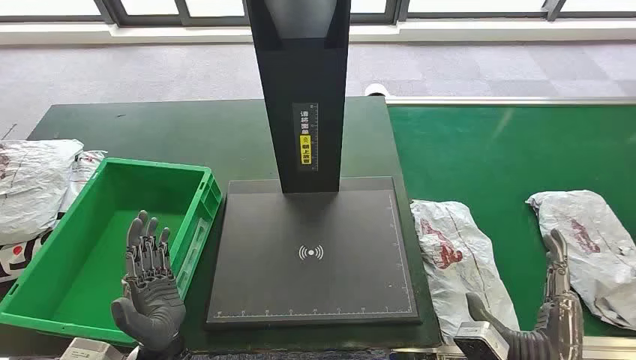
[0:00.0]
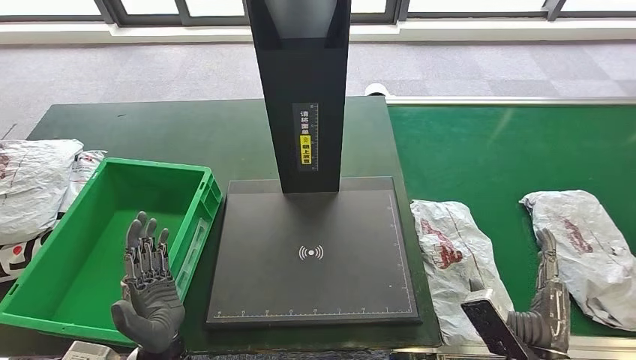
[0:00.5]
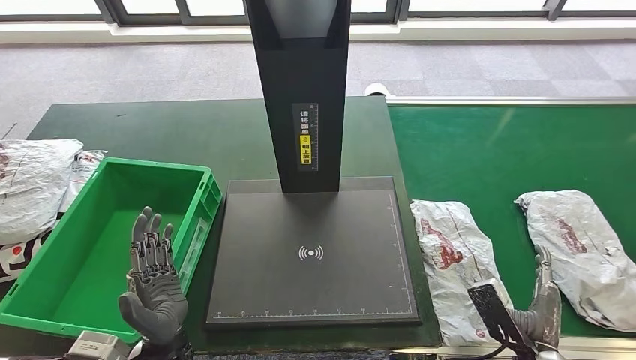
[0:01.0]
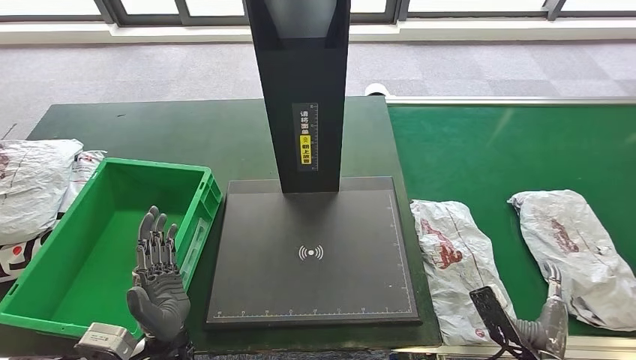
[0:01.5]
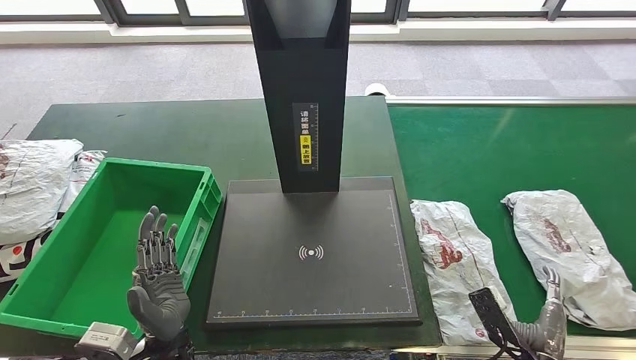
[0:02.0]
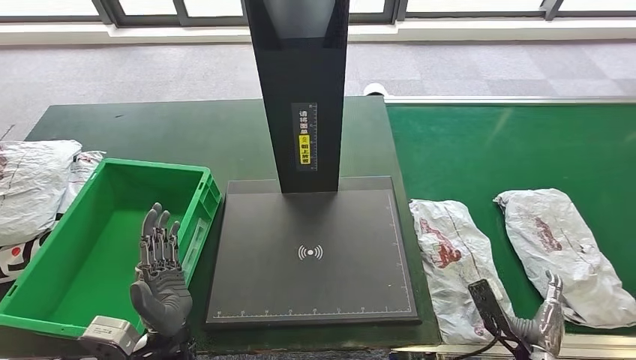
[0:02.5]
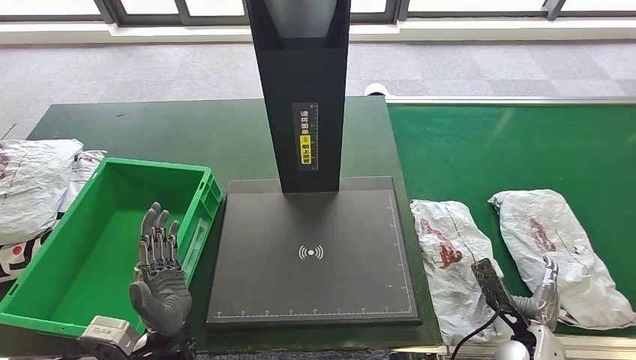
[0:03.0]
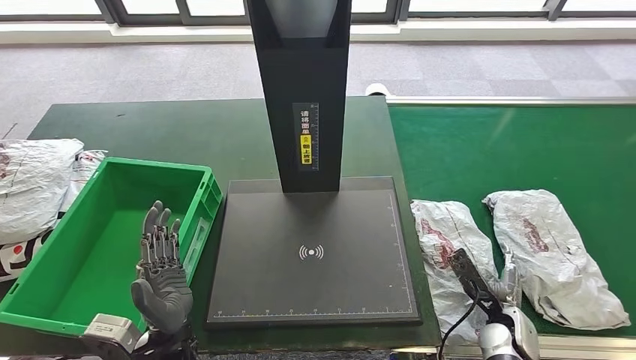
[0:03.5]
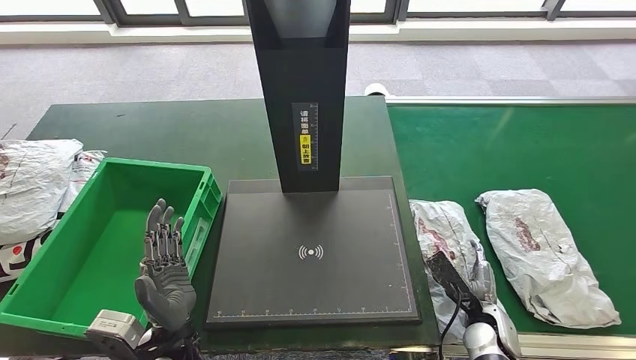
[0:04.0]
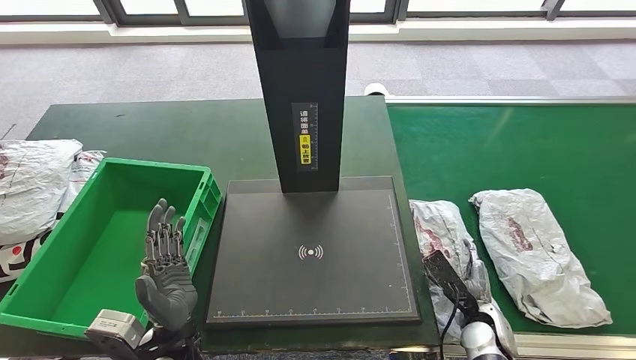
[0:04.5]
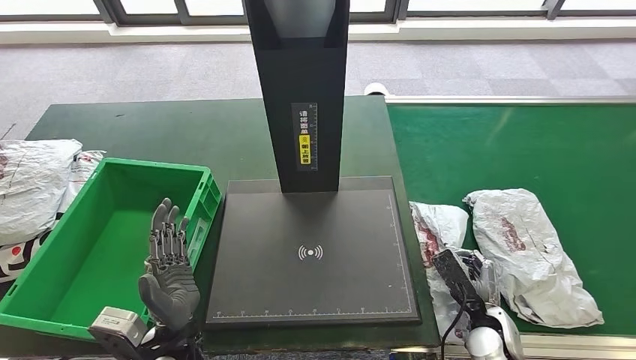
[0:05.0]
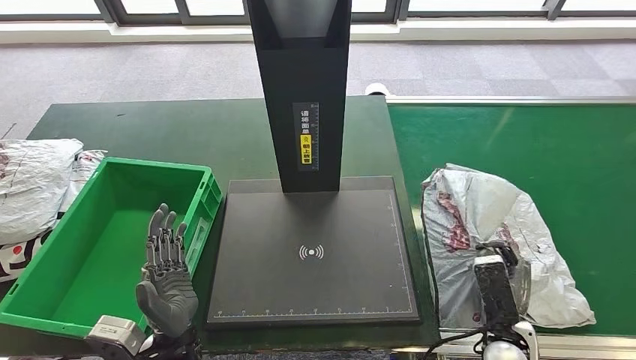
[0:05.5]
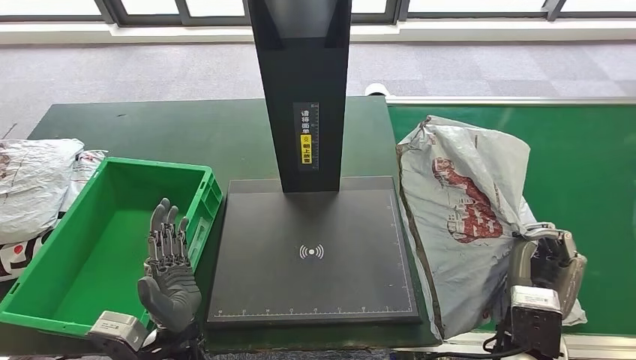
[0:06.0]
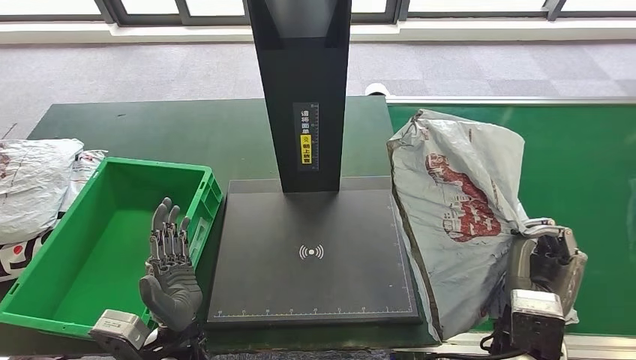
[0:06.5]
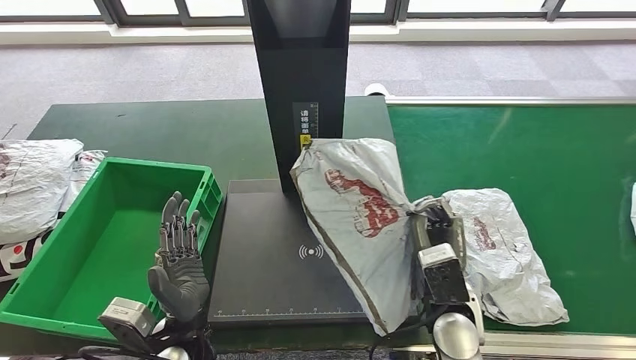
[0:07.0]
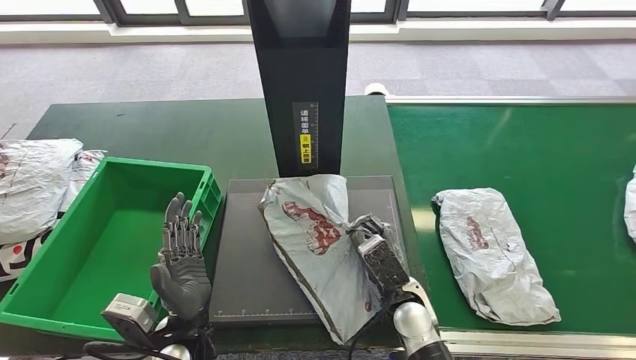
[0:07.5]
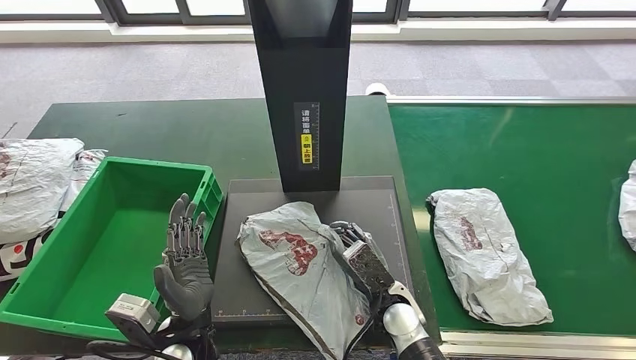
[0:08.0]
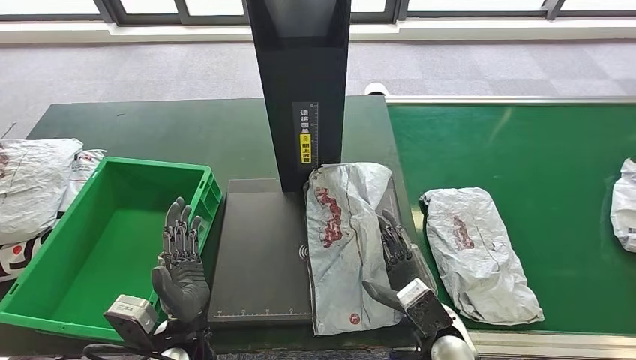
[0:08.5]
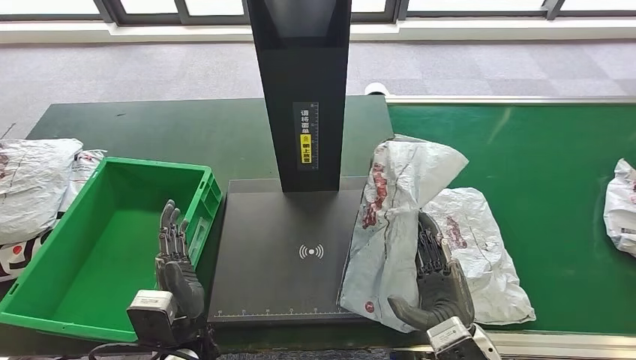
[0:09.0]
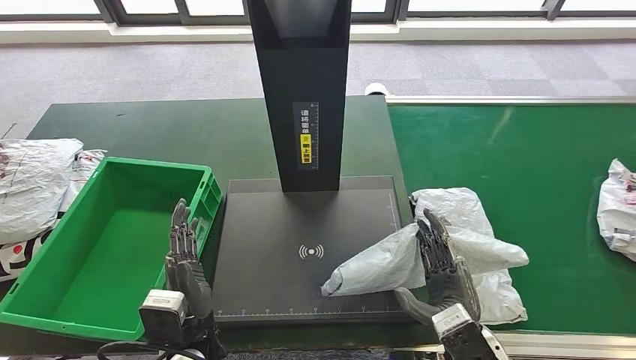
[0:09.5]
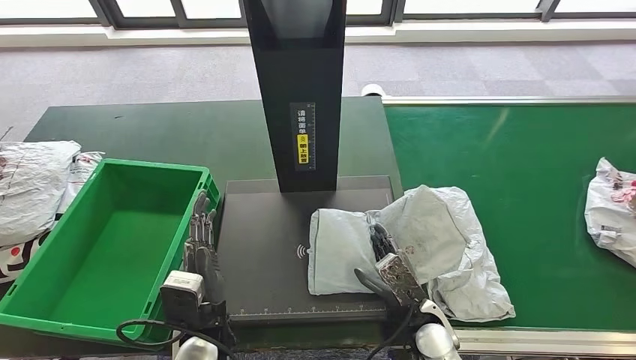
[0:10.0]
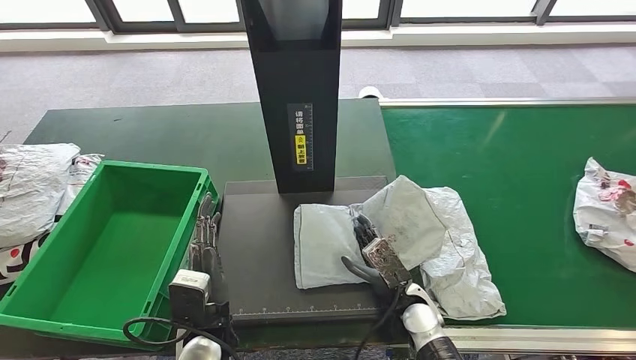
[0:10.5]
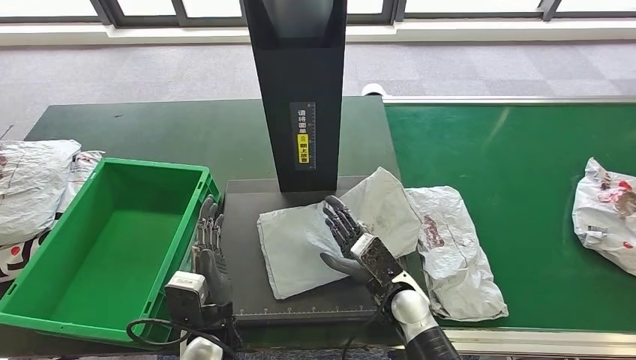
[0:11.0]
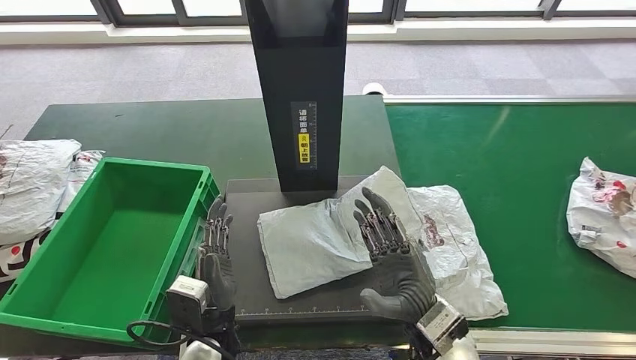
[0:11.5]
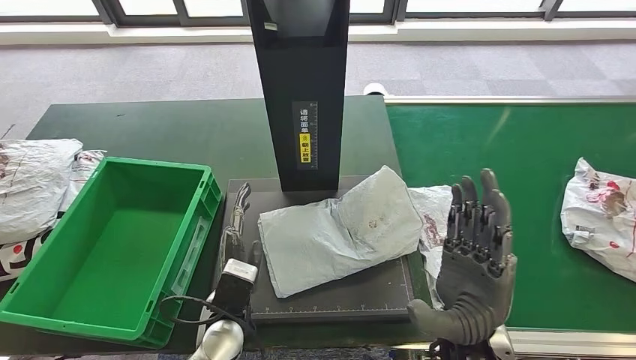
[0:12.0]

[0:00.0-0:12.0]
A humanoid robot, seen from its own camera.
Step, 0:00.0 to 0:06.0: Take the parcel off the conveyor belt.
Step, 0:06.5 to 0:08.0: Place the parcel onto the inbound machine.
0:02.0 to 0:04.0: The right hand travels forward by roughly 10 cm.
0:04.0 to 0:06.0: The right hand is displaced upward by approximately 15 cm.

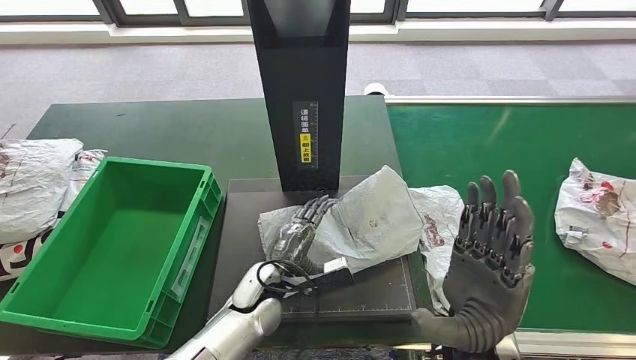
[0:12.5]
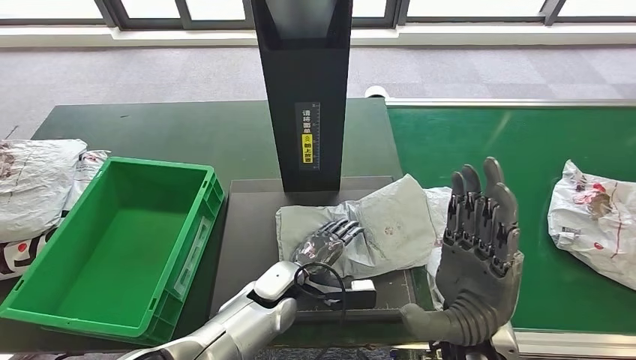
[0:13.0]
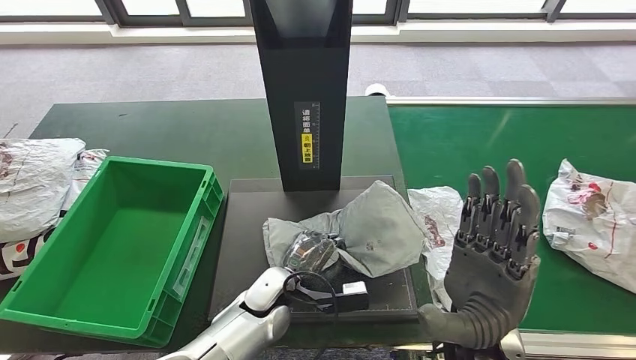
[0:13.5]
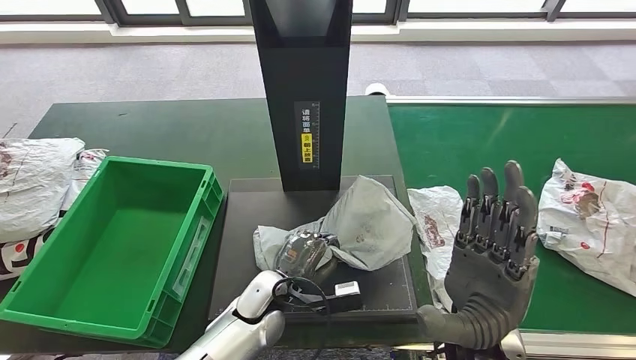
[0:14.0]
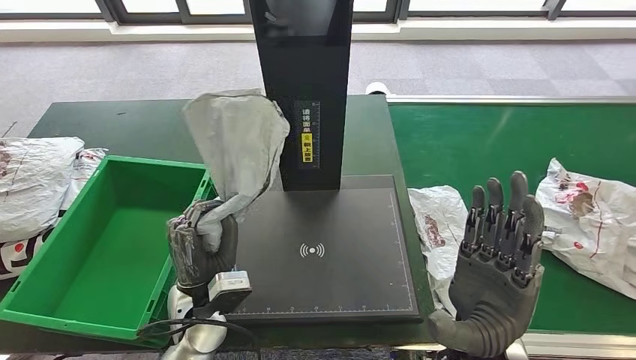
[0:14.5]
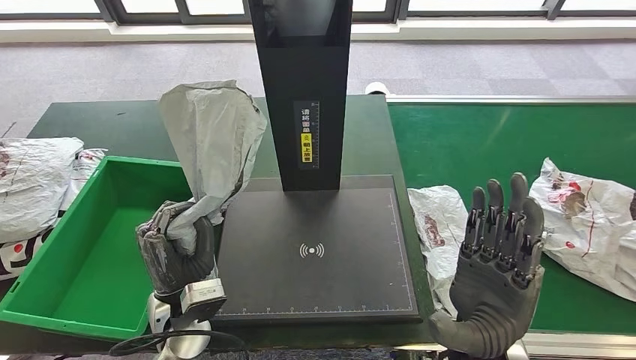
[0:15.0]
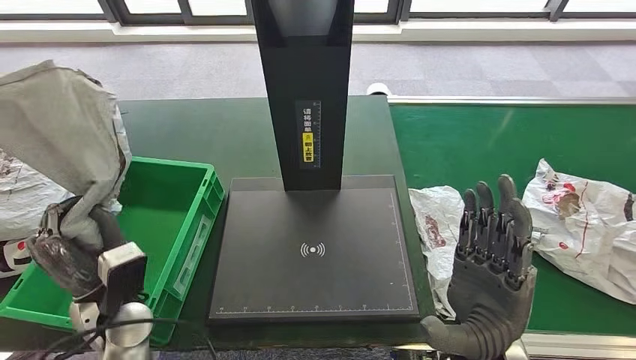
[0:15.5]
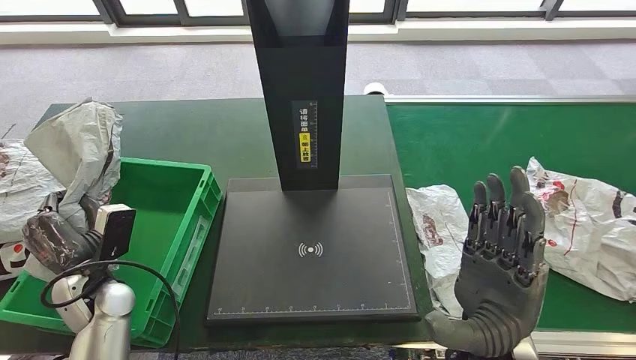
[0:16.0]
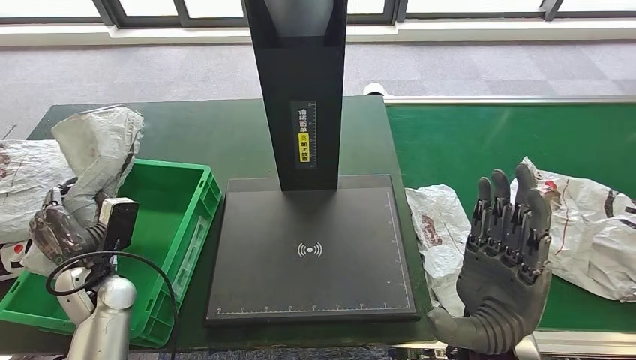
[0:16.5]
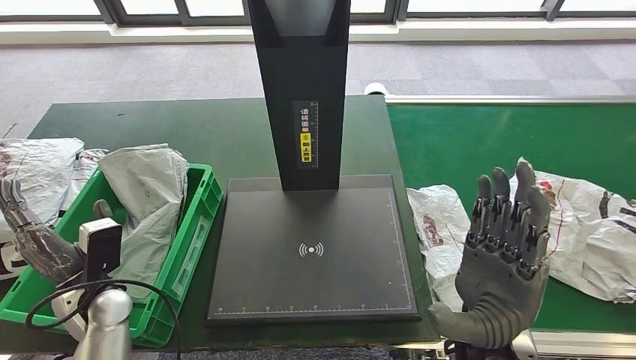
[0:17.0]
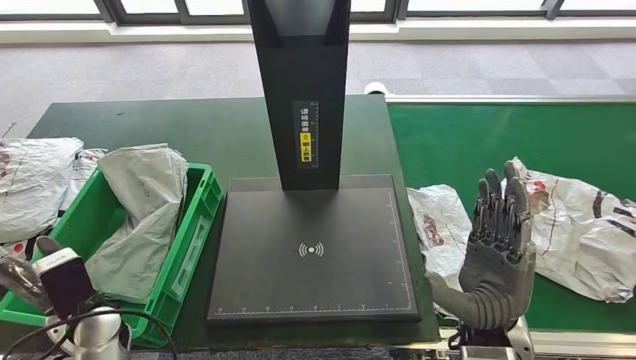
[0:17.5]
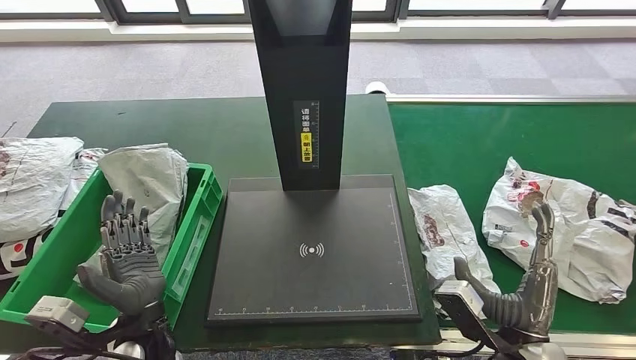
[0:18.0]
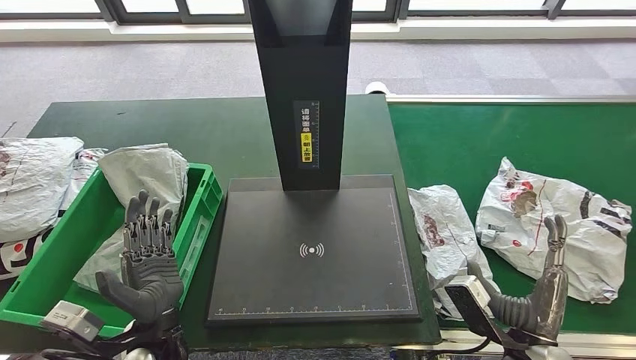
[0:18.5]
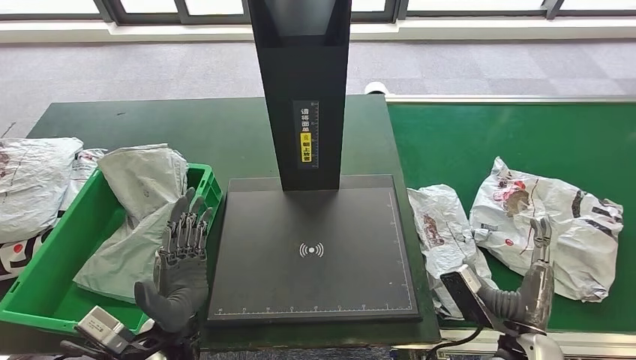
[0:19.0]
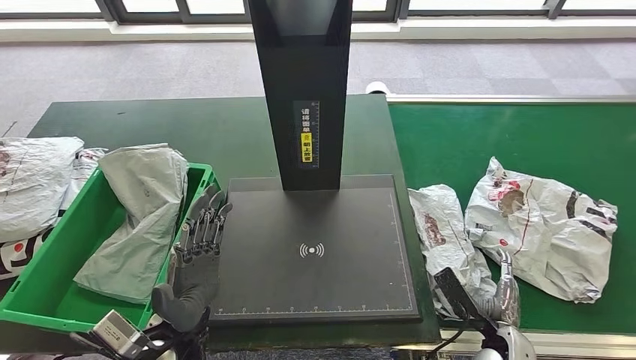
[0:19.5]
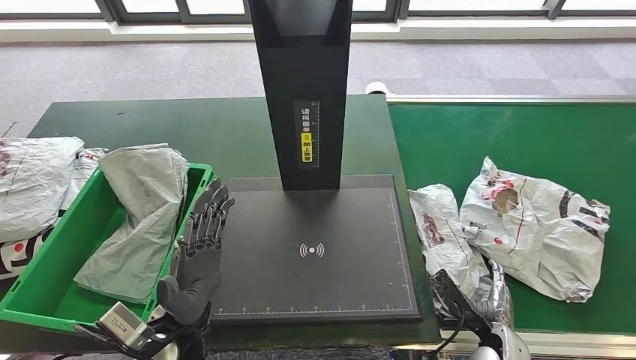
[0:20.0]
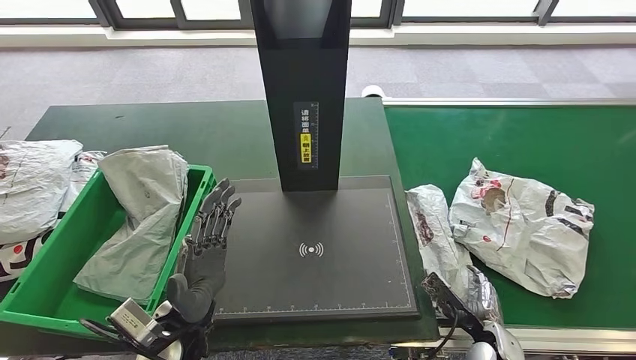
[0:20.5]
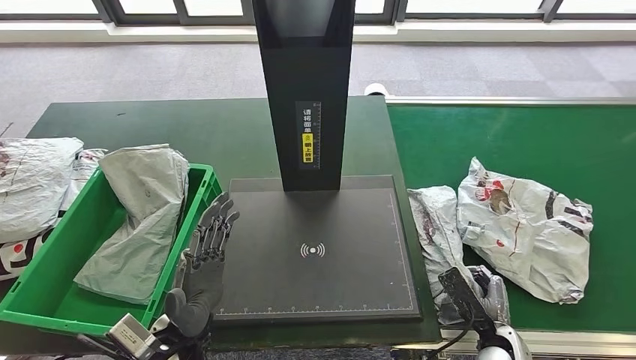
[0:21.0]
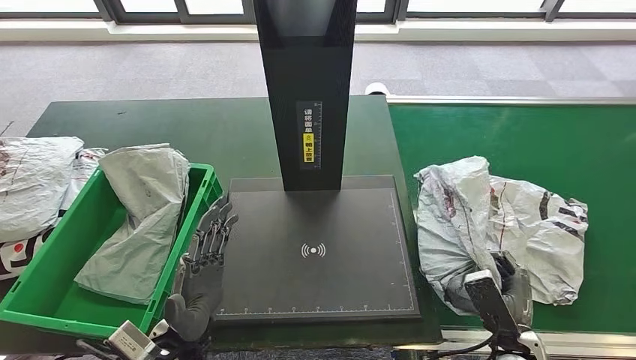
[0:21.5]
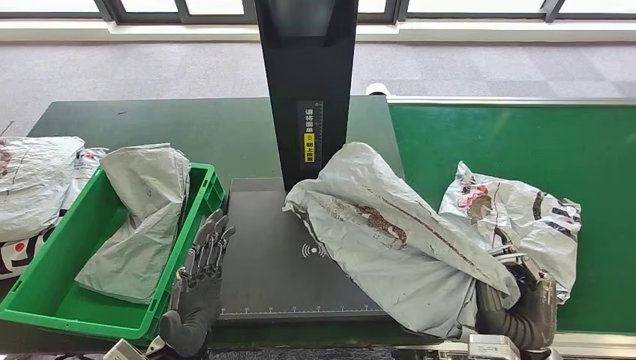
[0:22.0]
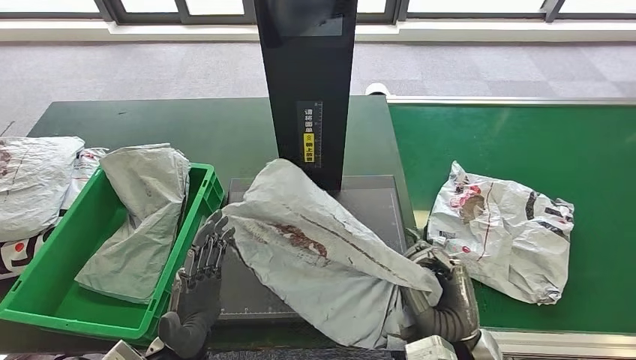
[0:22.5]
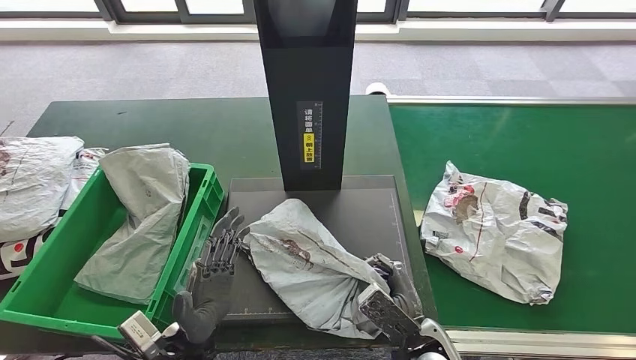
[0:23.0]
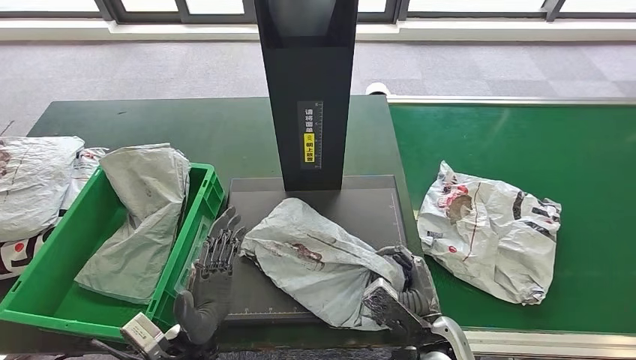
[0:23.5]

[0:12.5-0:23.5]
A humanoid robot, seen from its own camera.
Step, 0:12.5 to 0:14.5: Pick up the parcel from the inbound machine.
Step, 0:15.0 to 0:17.5: Put the parcel inside the courier box.
Step, 0:18.5 to 0:22.0: Pick up the parcel from the conveyor belt.
0:18.0 to 0:20.0: The right hand travels downward by some 15 cm. Meanwhile the left hand travels to the right by approximately 5 cm.
0:20.0 to 0:21.5: The right hand goes approximately 5 cm upward.
0:21.5 to 0:23.5: The right hand heads to the left, covering roughly 10 cm.
